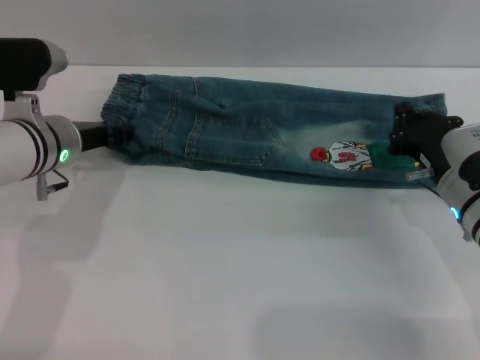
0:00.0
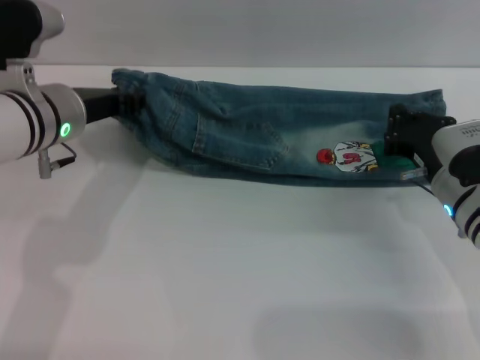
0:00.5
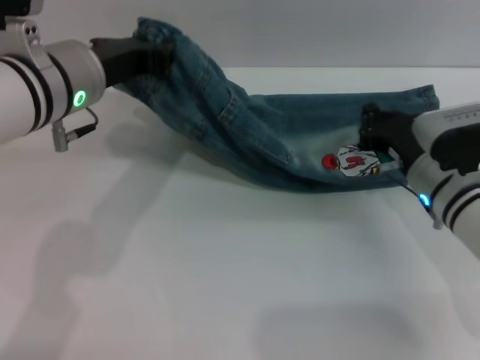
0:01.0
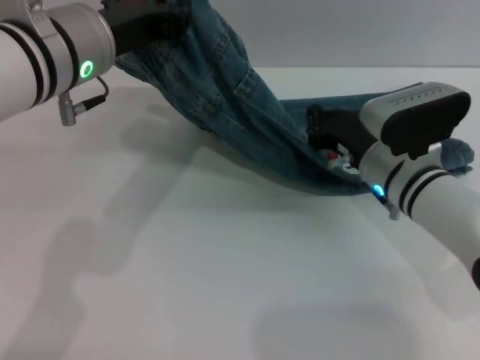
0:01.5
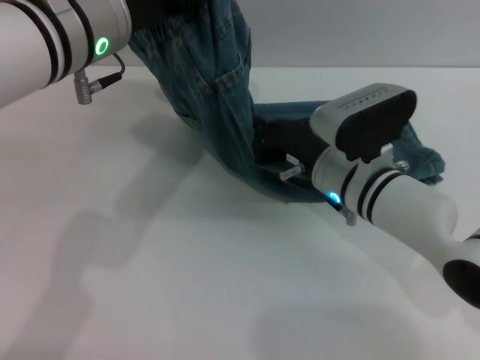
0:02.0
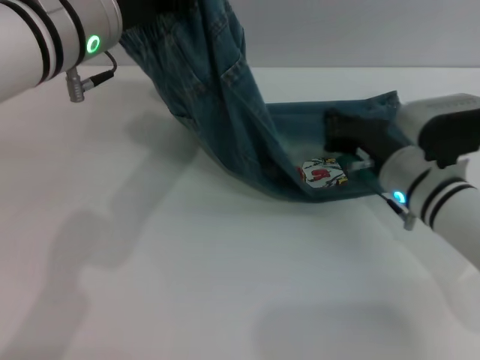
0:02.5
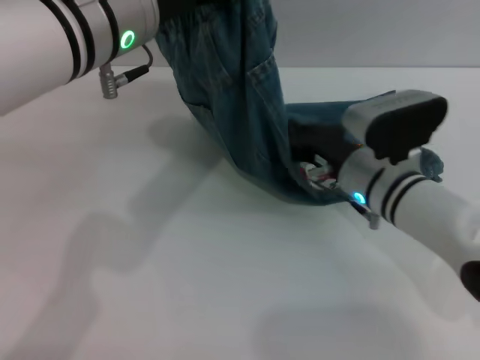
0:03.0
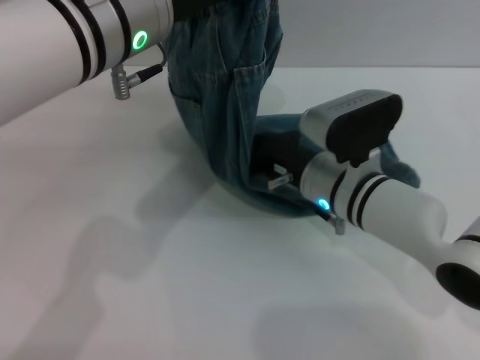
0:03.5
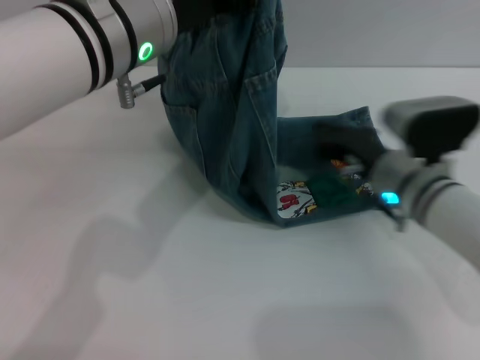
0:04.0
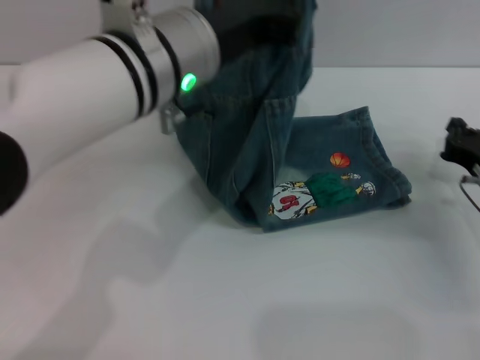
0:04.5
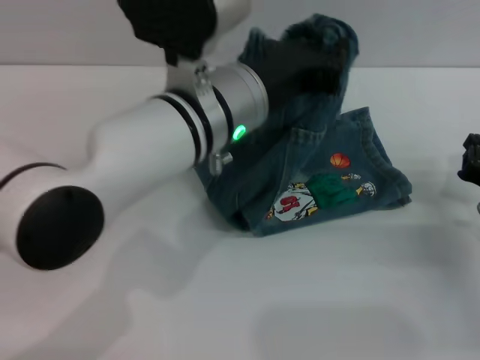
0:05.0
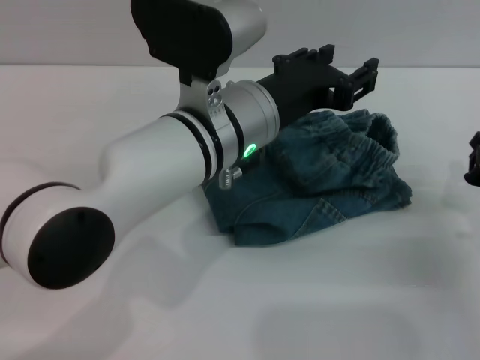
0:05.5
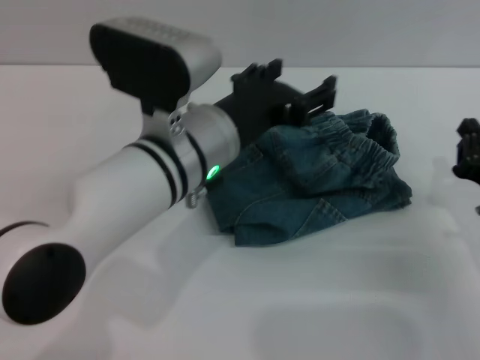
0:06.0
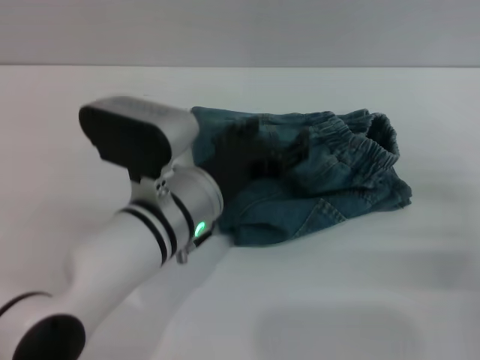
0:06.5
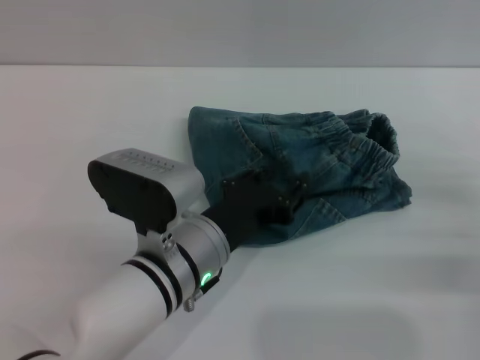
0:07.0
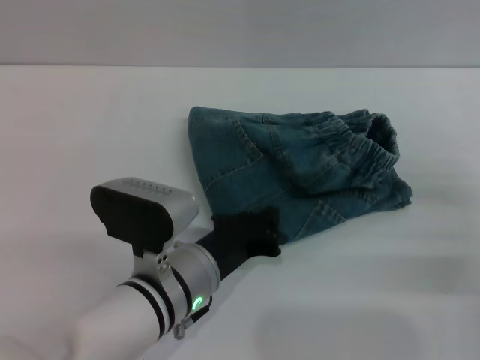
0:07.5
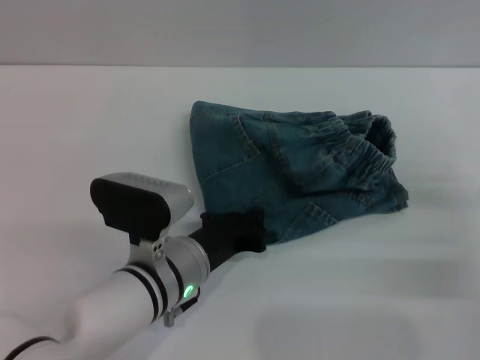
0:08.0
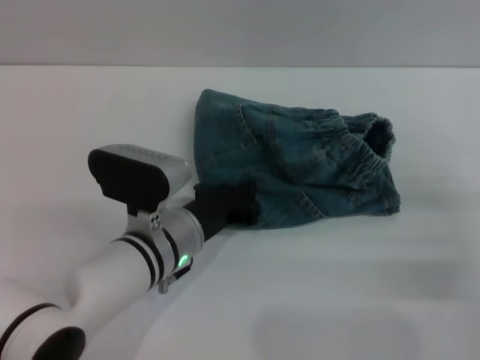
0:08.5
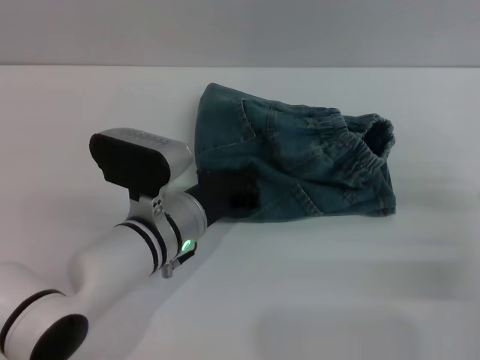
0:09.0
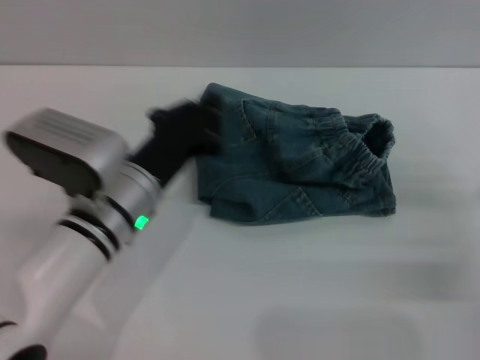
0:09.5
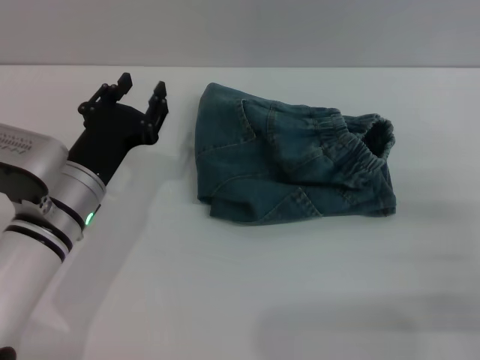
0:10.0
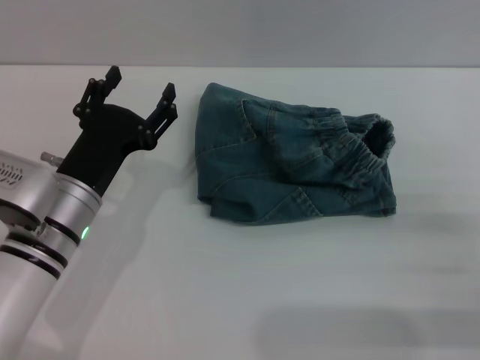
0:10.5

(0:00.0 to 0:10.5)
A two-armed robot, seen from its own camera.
Step, 0:00.0 - 0:06.0: Fold the pants from left to right with the left gripper.
Step, 0:06.5 - 0:09.0: Place the folded trousers onto the center area with the left grippers.
0:00.0 - 0:02.0: The left gripper is displaced upward and to the right by some 15 cm, and closes up; the right gripper shifts roughly 10 cm to the left.
0:02.0 - 0:04.0: The right gripper moves left and right over approximately 10 cm, changing direction 2 times.
0:04.0 - 0:06.5: The right gripper shifts roughly 20 cm to the right and backward, while the left gripper is displaced downward by approximately 15 cm, and opens up.
0:06.5 - 0:08.5: The left gripper moves downward, approximately 5 cm, and closes.
0:08.5 - 0:10.5: The right gripper opens its fingers. Meanwhile the left gripper travels to the left by roughly 10 cm, and opens.

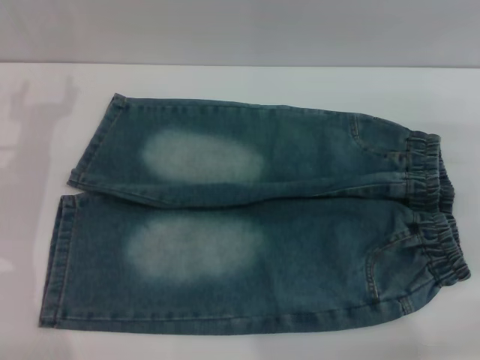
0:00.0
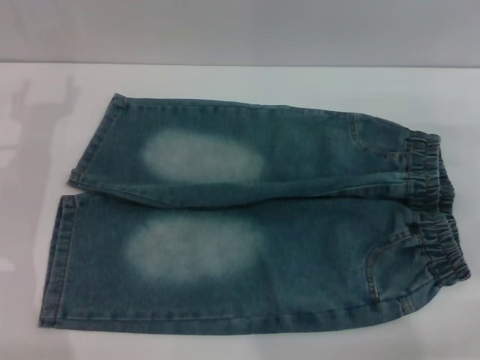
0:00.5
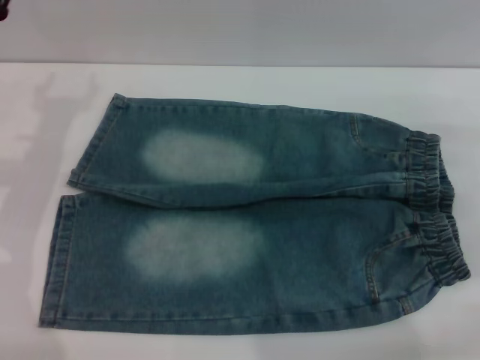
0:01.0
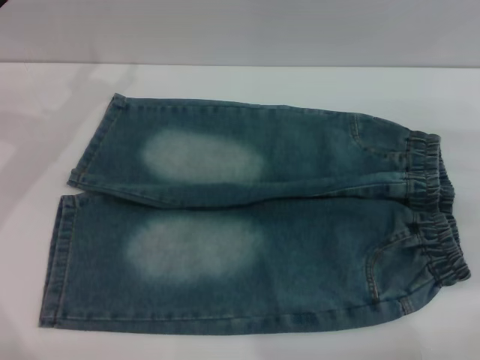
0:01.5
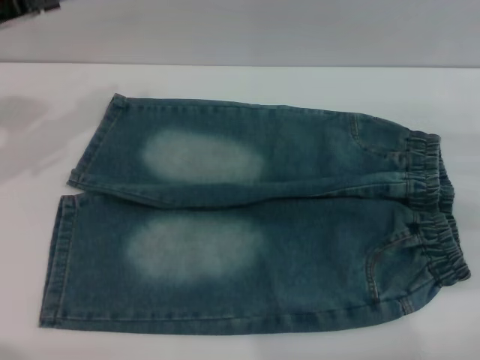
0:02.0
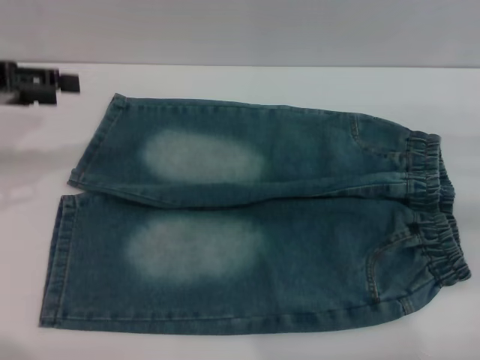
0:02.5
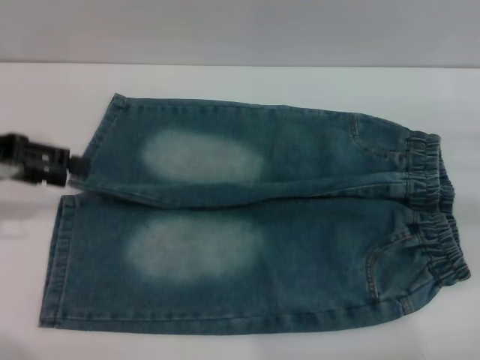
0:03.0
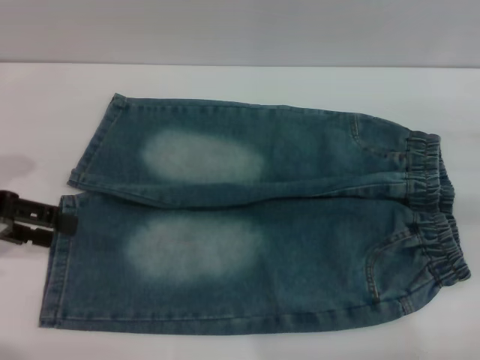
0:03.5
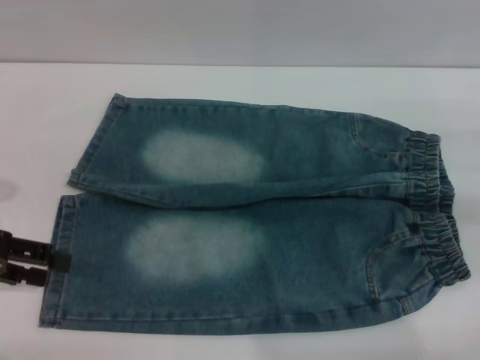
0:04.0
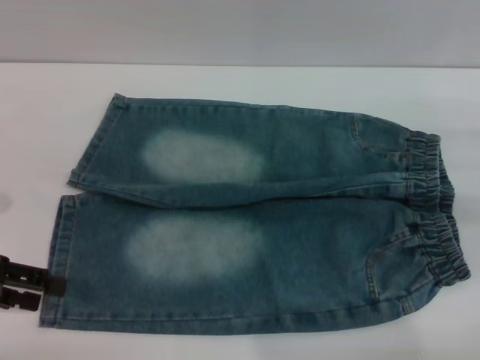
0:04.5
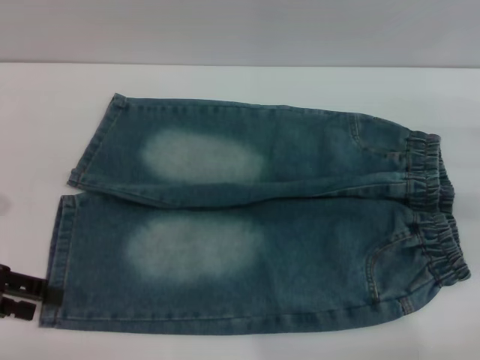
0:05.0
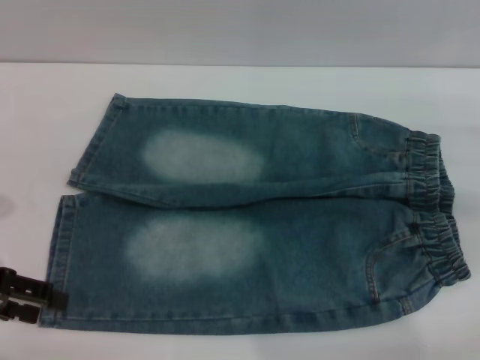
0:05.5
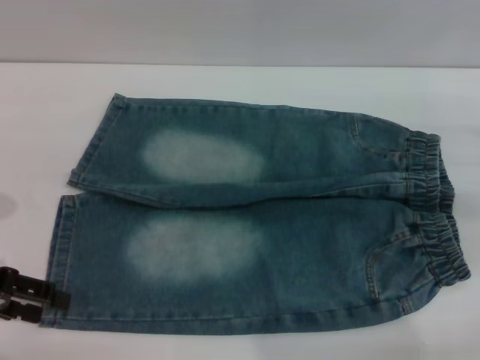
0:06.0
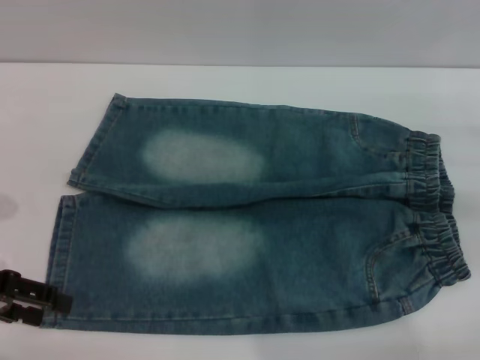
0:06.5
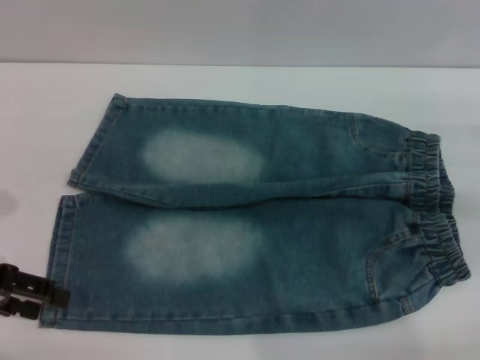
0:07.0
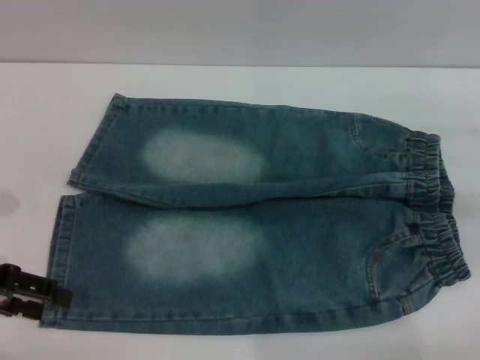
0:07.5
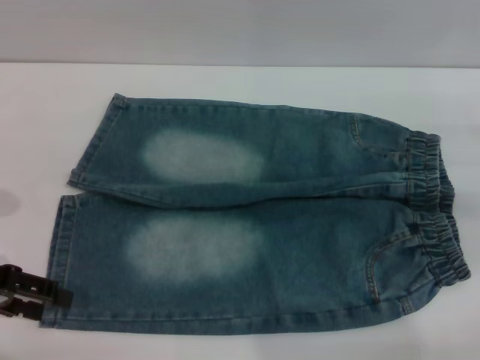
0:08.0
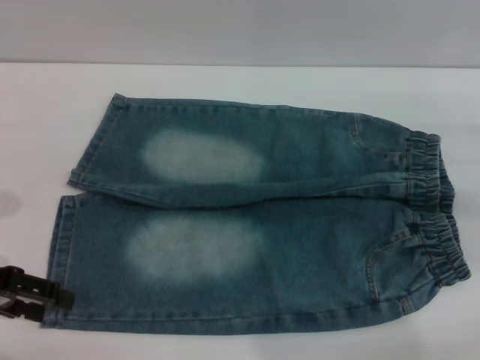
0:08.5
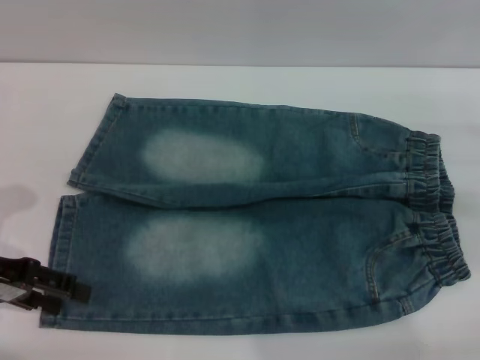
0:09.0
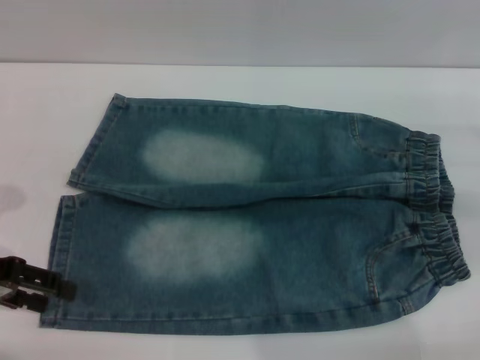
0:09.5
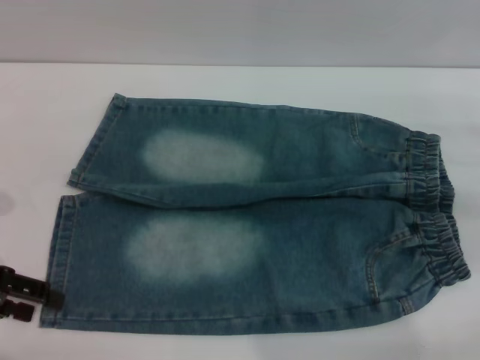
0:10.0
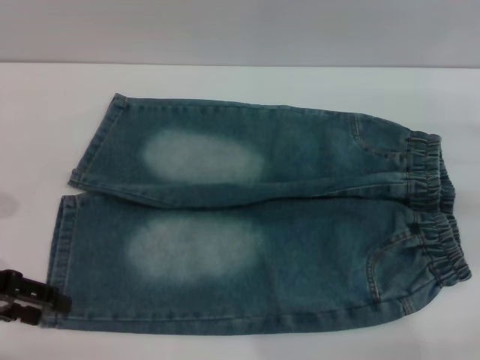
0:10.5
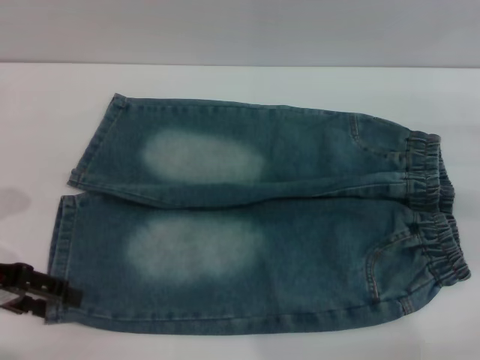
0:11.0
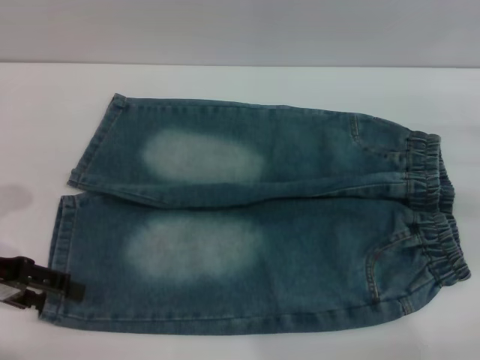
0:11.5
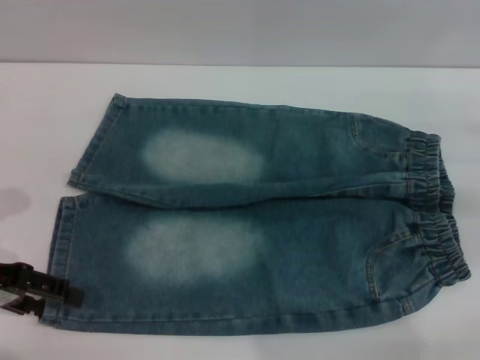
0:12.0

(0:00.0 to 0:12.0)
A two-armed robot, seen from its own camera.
0:00.0 - 0:02.0: The left gripper is displaced upward by some 10 cm.
0:02.0 - 0:04.0: The left gripper travels backward and downward by some 15 cm.
0:04.0 - 0:06.0: The grippers stay close to where they were, moving slightly.
0:06.0 - 0:08.0: The two grippers keep their place.
0:10.0 - 0:12.0: The grippers move only a little.

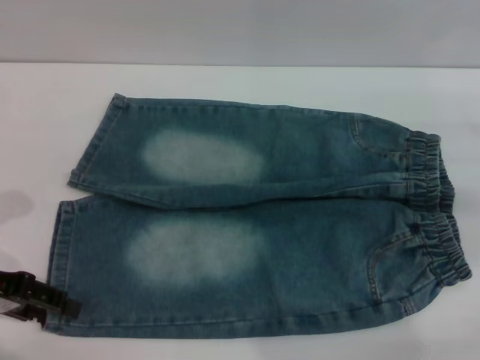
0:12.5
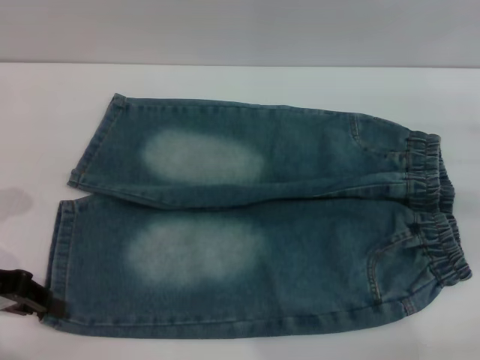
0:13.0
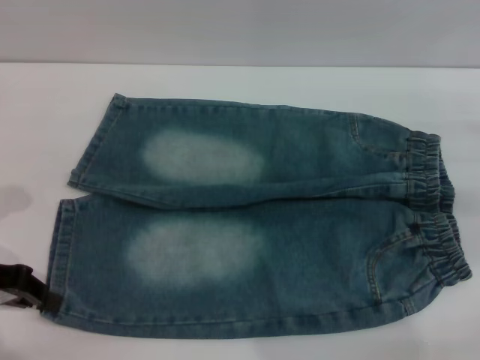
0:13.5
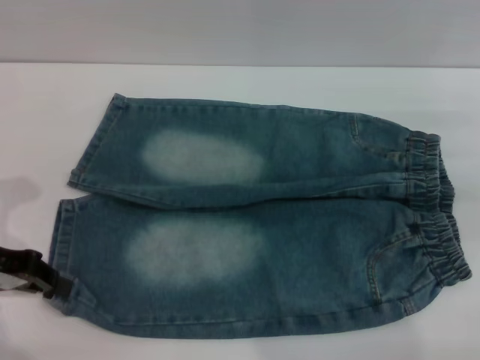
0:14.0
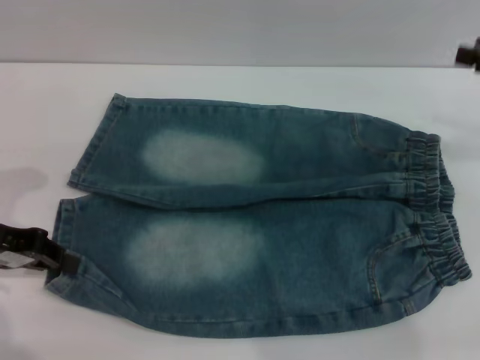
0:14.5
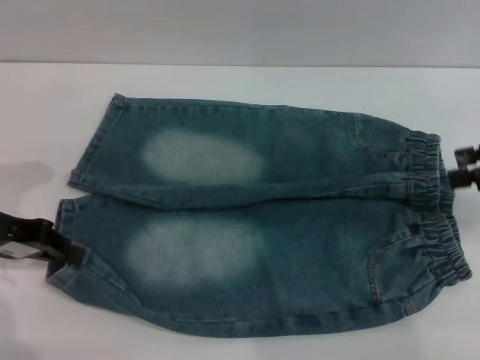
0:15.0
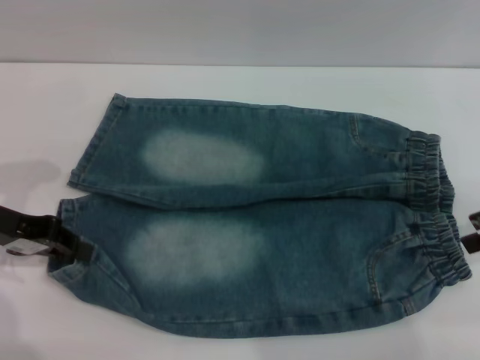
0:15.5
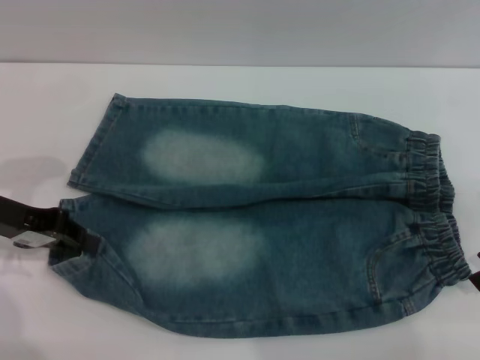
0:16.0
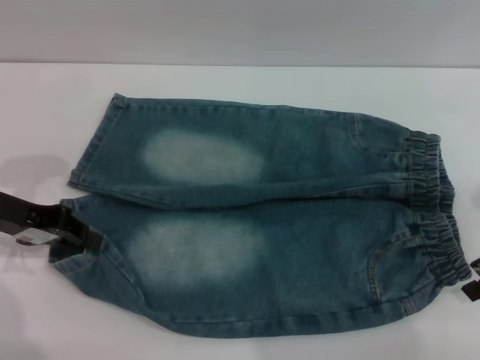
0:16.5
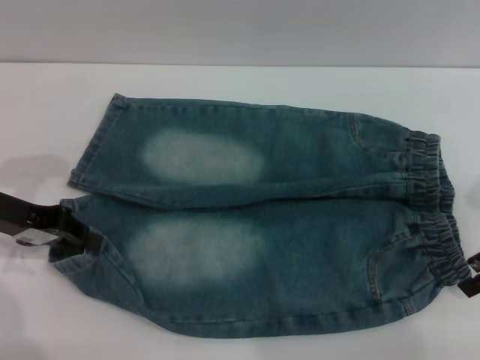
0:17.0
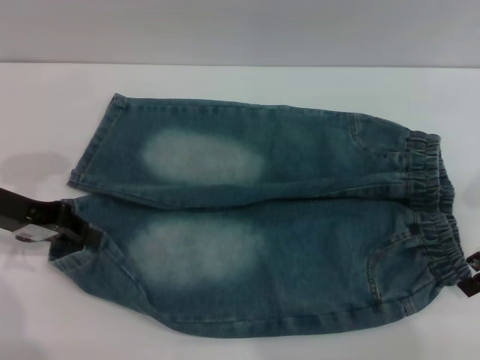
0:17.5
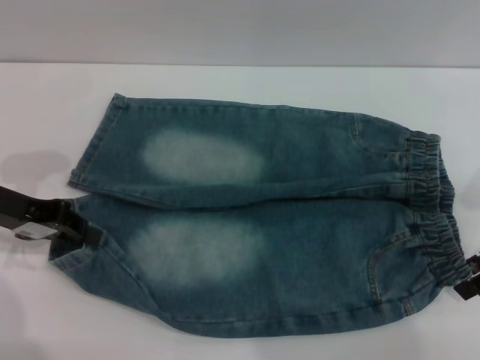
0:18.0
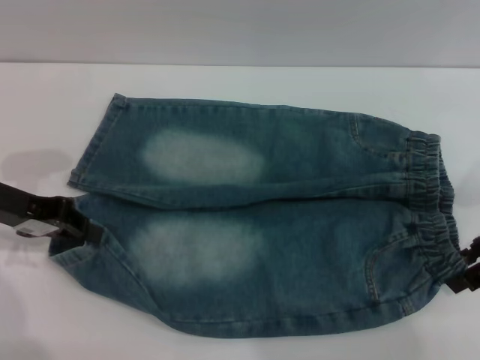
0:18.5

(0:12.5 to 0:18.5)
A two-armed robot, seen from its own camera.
0:12.5 - 0:14.5: The left gripper closes its fingers.
0:14.5 - 0:16.5: The right gripper shifts by about 5 cm.
0:16.5 - 0:18.5: There are only small adjustments of the grippers.
